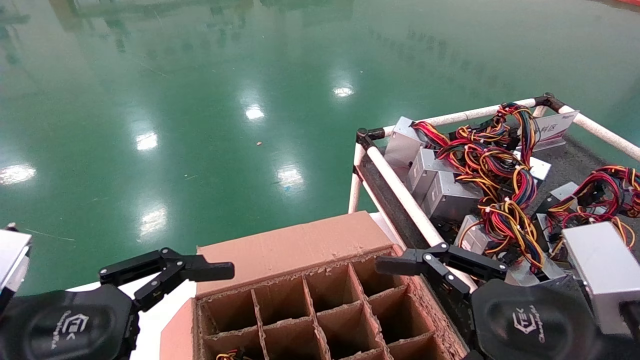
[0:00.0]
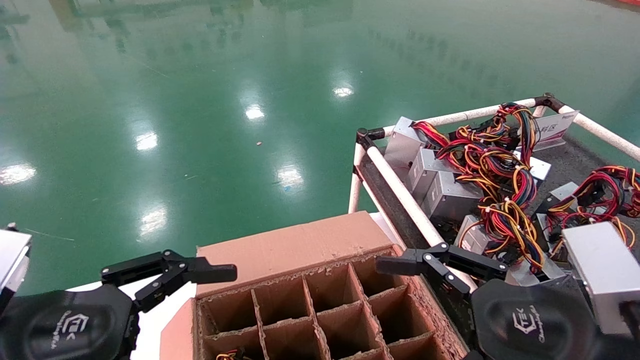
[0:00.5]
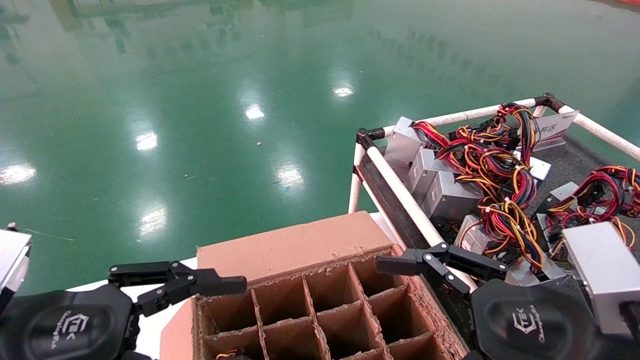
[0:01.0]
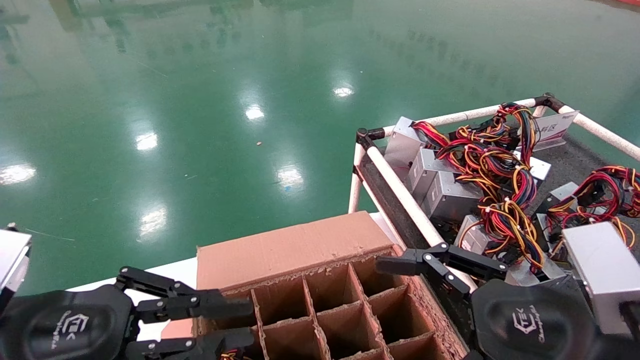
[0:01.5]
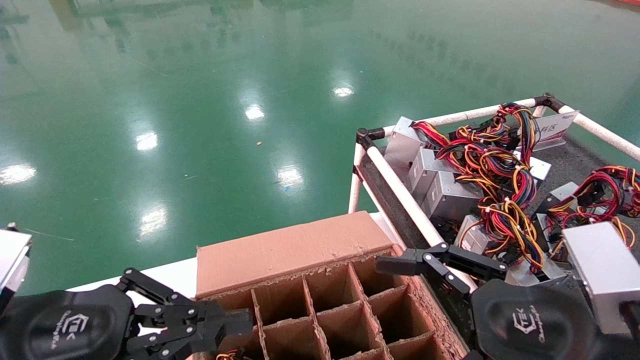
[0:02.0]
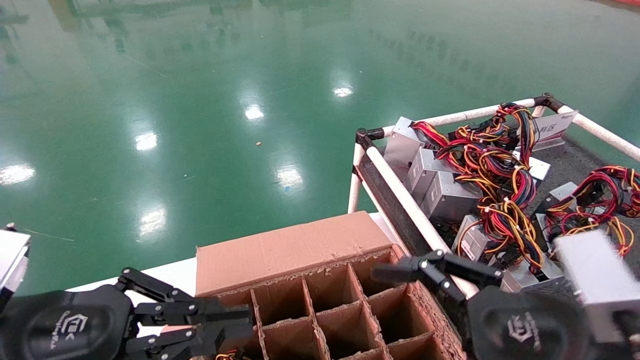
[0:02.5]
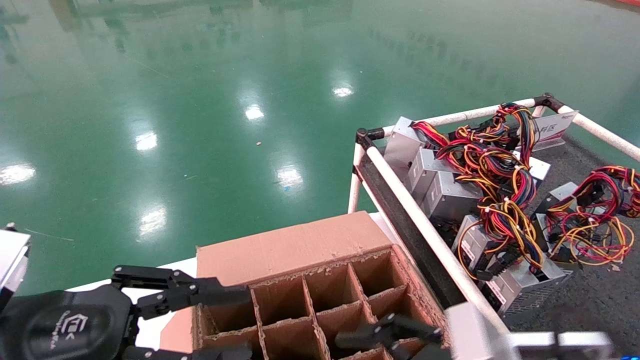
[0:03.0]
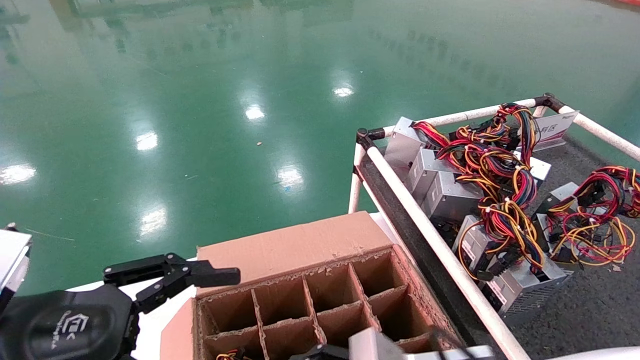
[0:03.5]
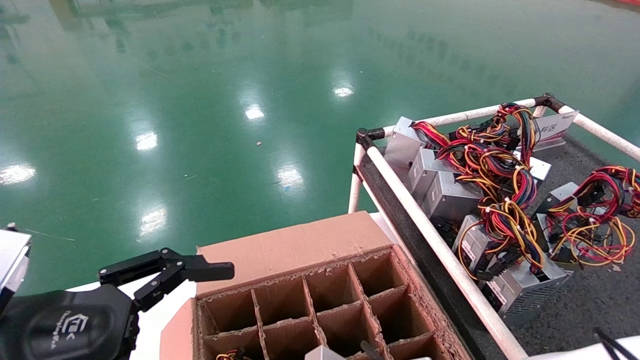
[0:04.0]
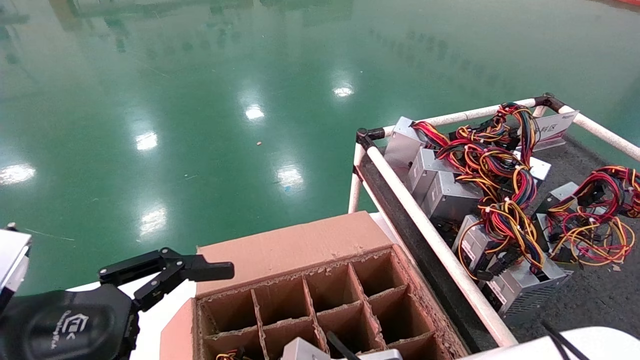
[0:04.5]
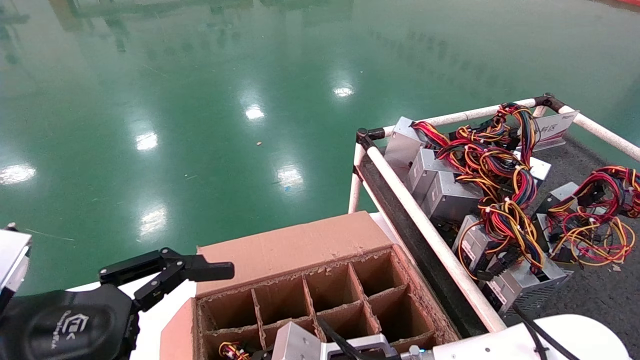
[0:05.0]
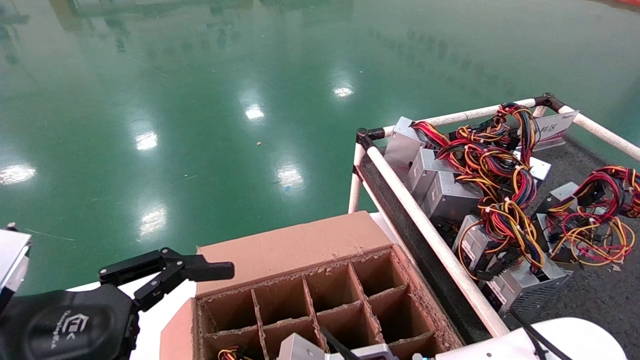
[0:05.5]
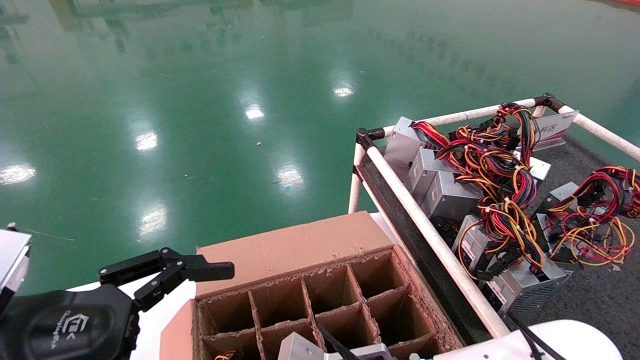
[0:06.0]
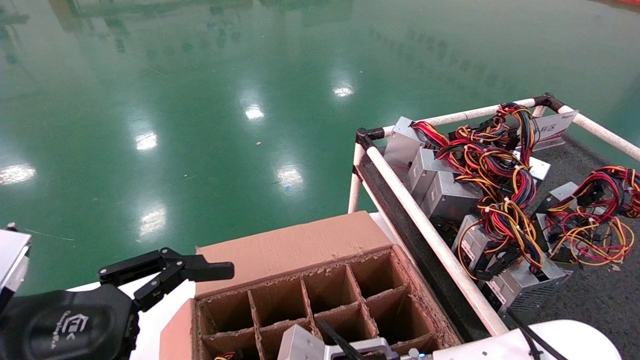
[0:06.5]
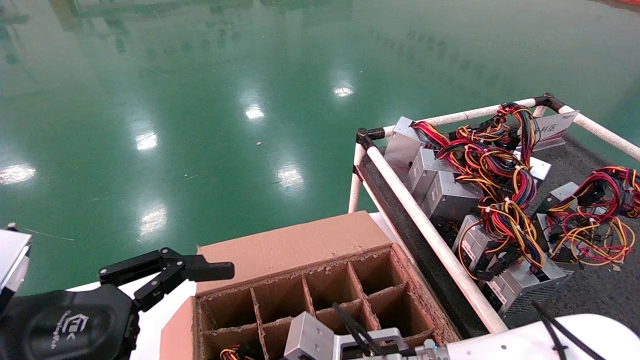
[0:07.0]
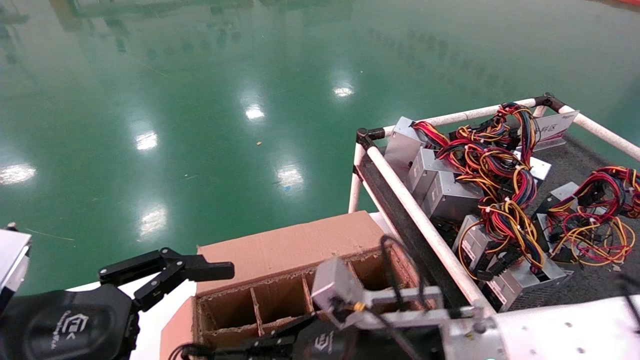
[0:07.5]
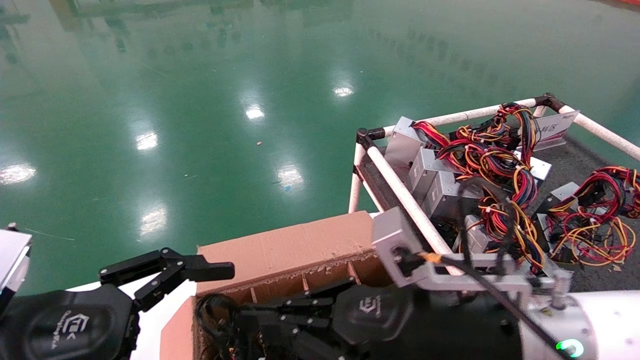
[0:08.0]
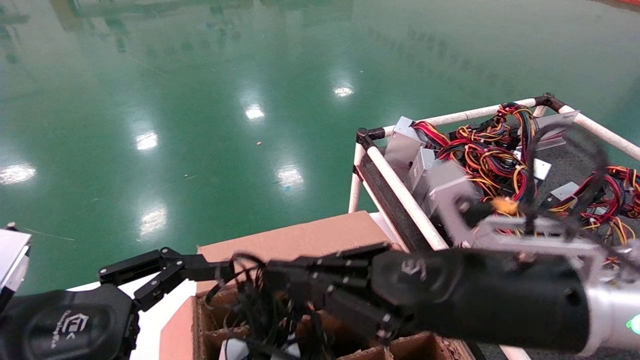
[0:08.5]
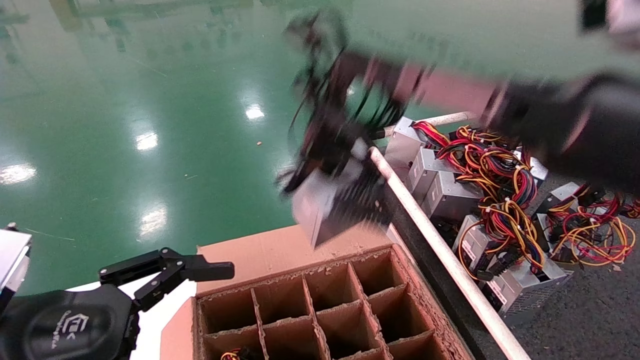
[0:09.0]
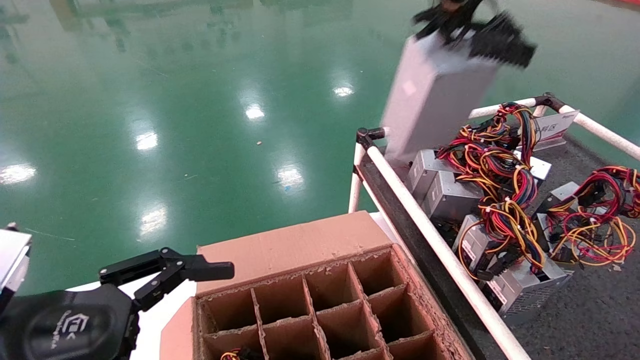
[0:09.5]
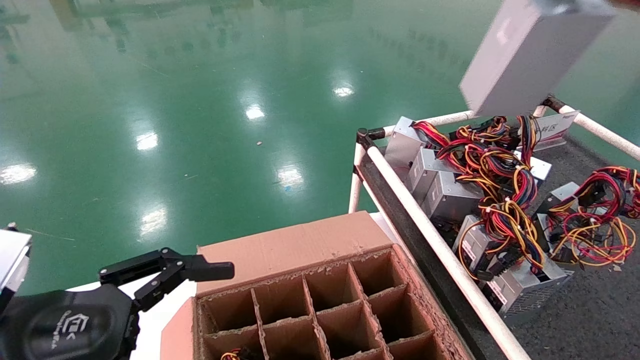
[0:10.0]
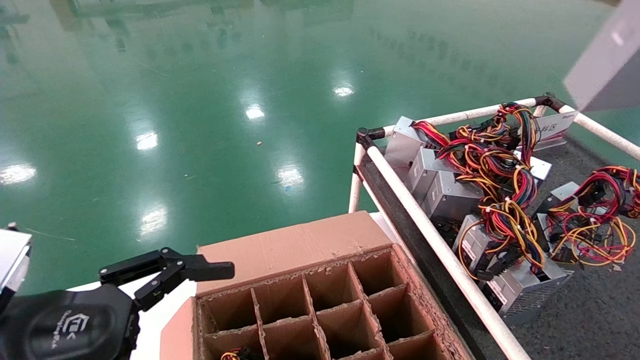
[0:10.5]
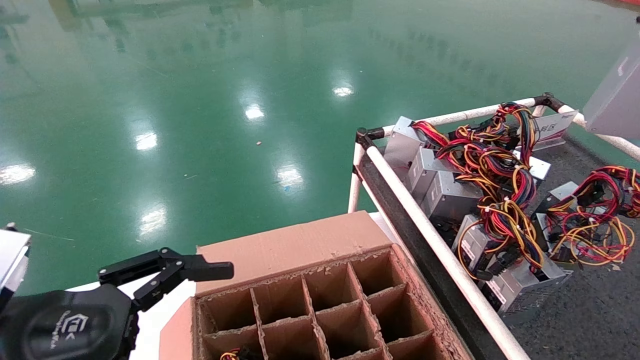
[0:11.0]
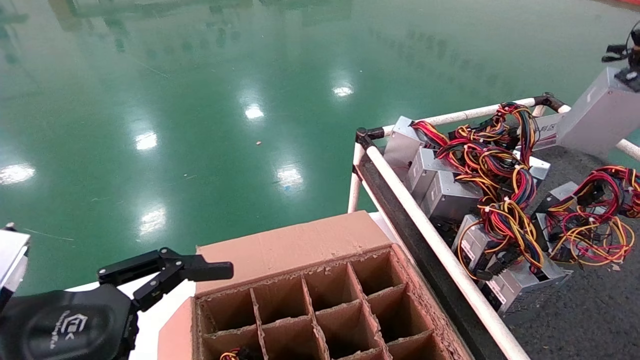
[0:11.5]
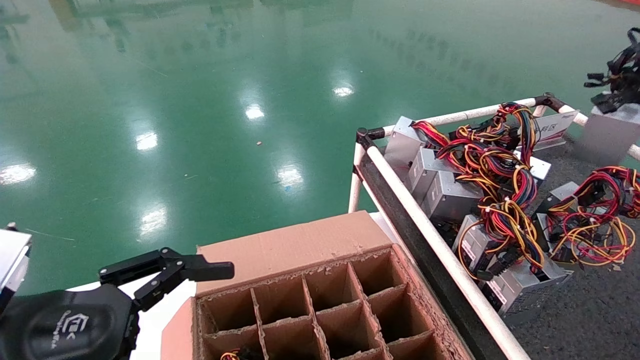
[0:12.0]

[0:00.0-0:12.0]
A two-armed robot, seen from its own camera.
Step, 0:00.5 to 0:06.5: Grab and lift the power supply from the large box.
0:00.0 to 0:02.0: The left gripper closes up.
0:02.0 to 0:04.0: The left gripper opens its fingers. The right gripper shifts approximately 20 cm to the left, downward and forward.
0:04.0 to 0:06.0: The right gripper moves approximately 5 cm.
0:06.0 to 0:08.0: The right gripper goes some 15 cm upward, to the right and backward, and closes.
0:08.0 to 0:10.0: The right gripper shifts roughly 40 cm upward and to the right.
0:10.0 to 0:12.0: The right gripper heads forward, to the right and downward, covering roughly 20 cm.

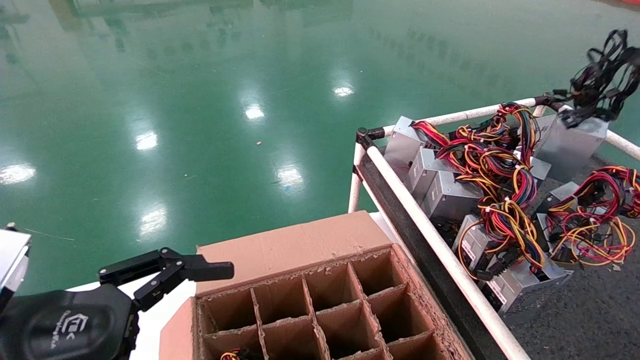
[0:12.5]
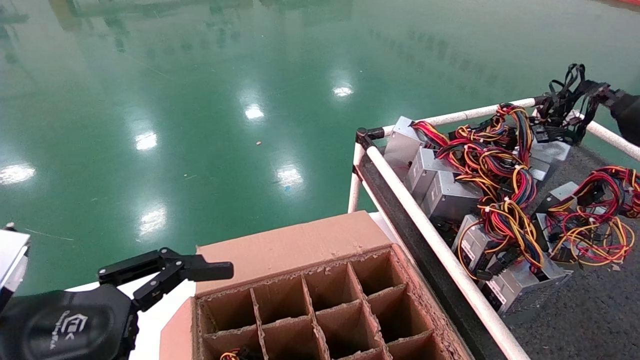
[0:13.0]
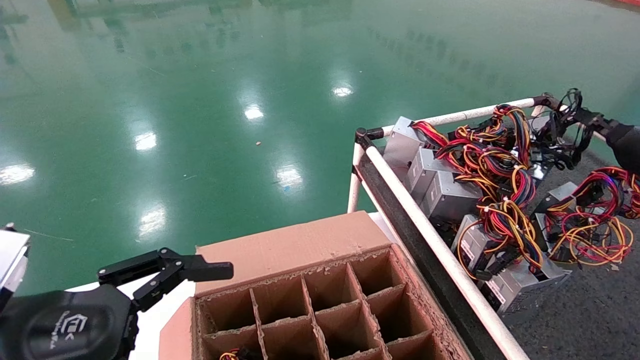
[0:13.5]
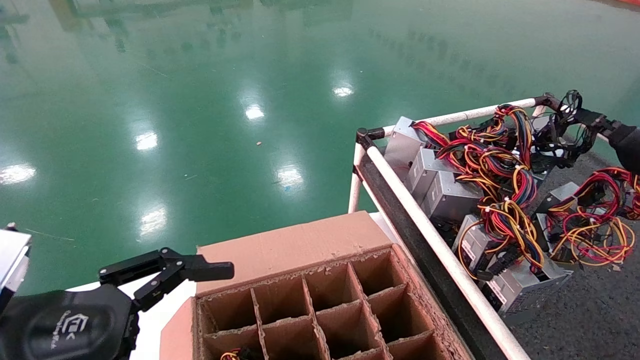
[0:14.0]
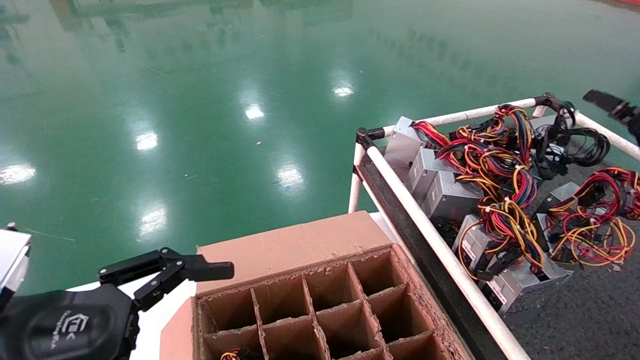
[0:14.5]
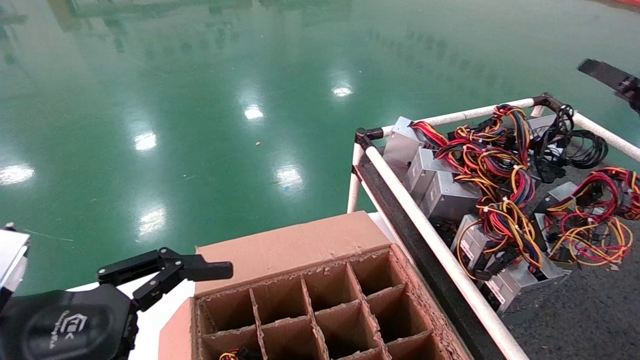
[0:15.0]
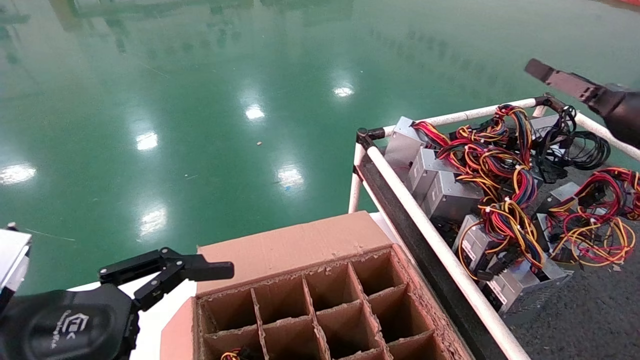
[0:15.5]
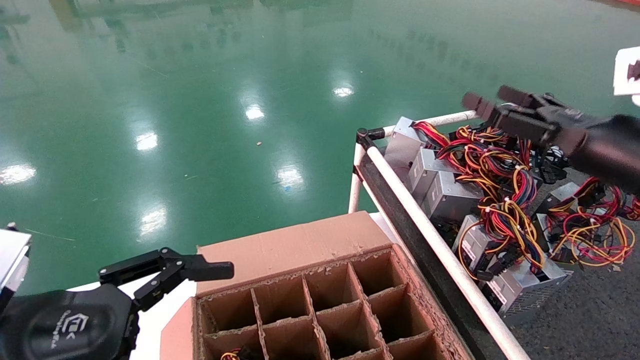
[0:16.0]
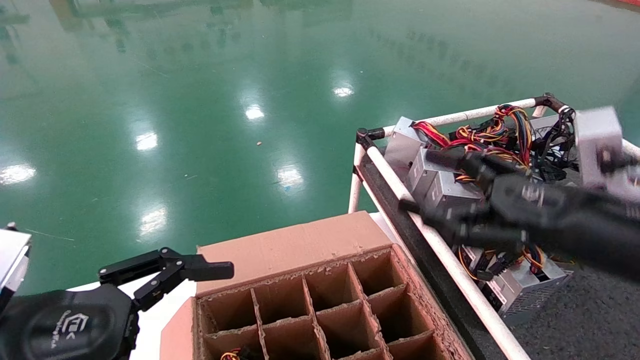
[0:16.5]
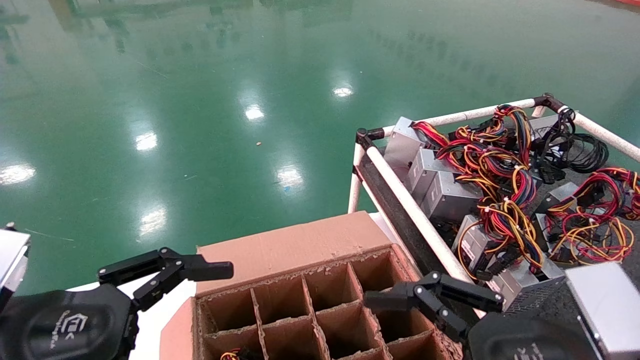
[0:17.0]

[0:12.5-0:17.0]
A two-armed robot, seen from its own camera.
0:12.5 to 0:14.5: The right gripper is displaced downward by some 5 cm, and opens.
0:14.5 to 0:17.0: The right gripper goes roughly 35 cm to the left, backward and downward, and opens.
